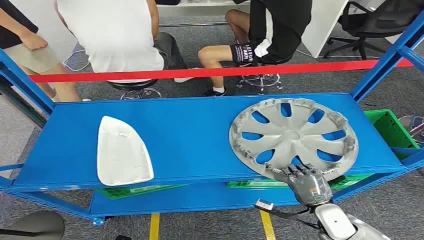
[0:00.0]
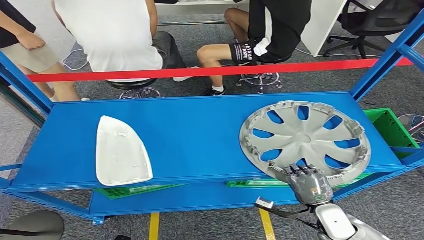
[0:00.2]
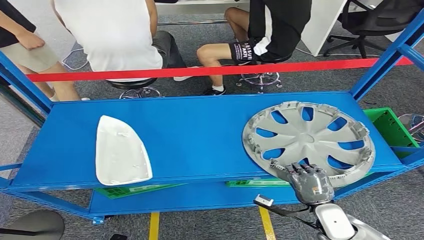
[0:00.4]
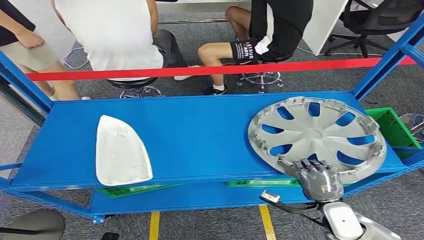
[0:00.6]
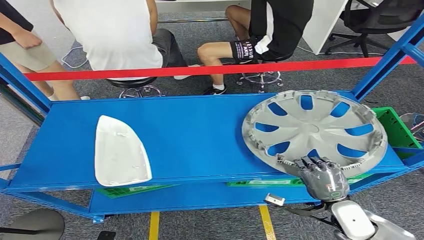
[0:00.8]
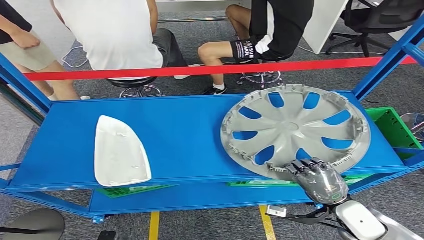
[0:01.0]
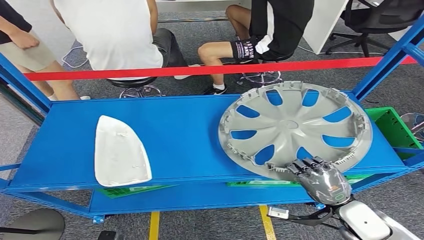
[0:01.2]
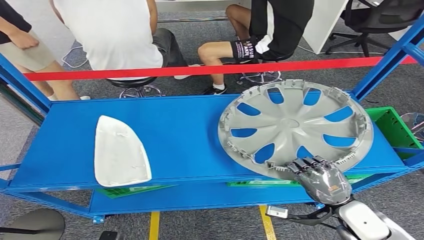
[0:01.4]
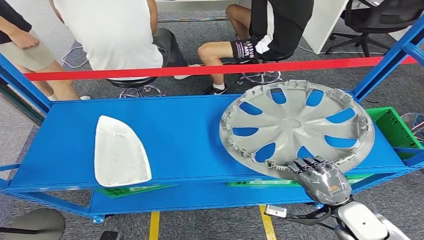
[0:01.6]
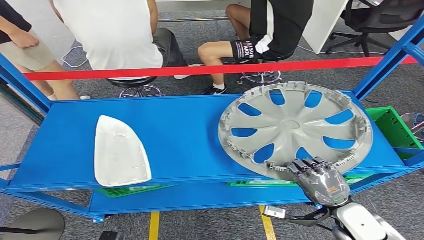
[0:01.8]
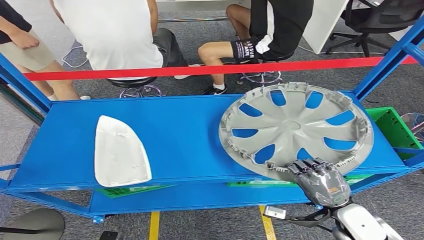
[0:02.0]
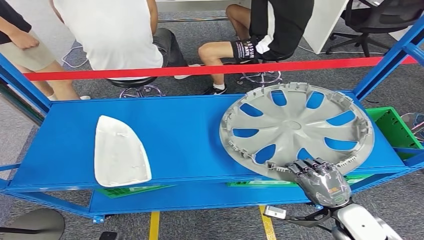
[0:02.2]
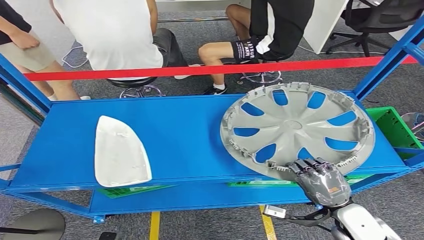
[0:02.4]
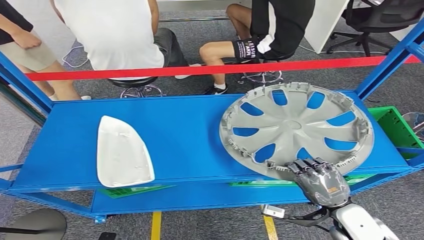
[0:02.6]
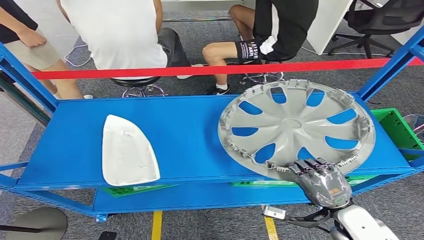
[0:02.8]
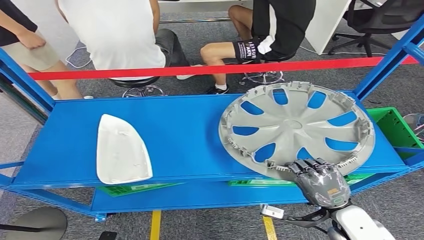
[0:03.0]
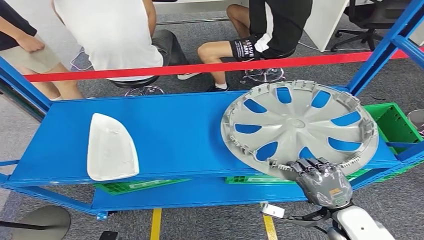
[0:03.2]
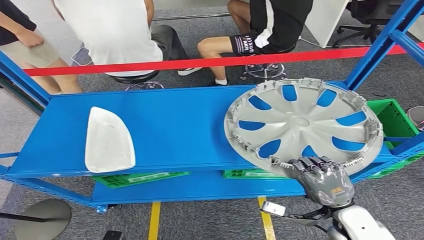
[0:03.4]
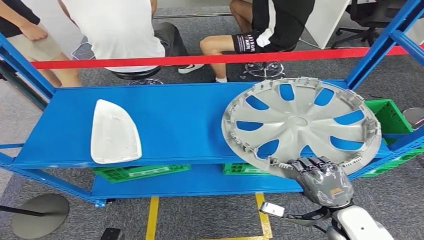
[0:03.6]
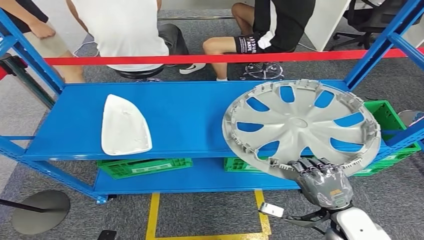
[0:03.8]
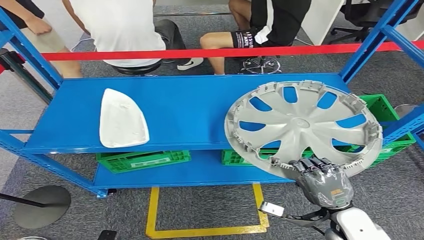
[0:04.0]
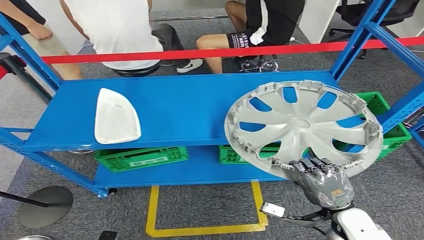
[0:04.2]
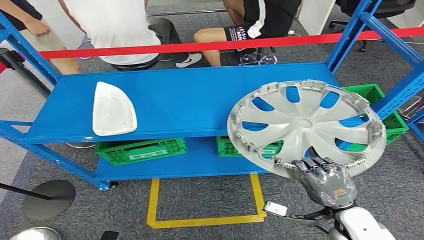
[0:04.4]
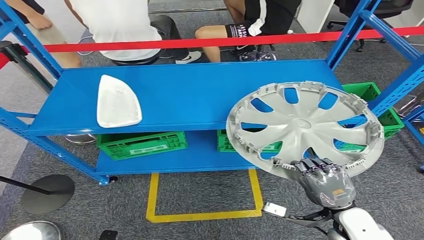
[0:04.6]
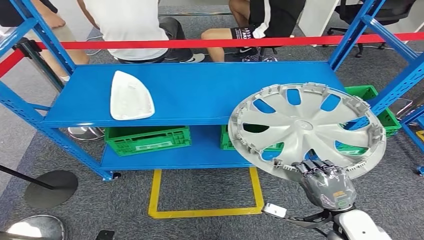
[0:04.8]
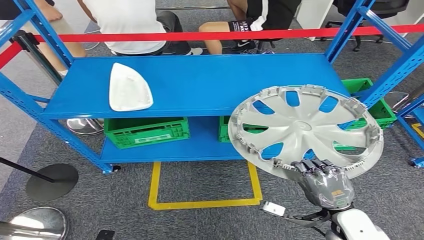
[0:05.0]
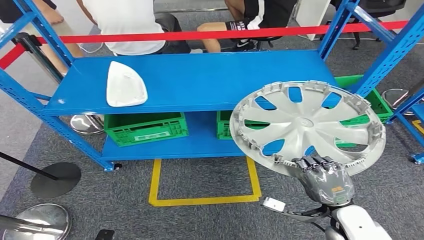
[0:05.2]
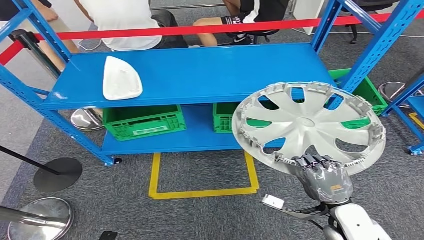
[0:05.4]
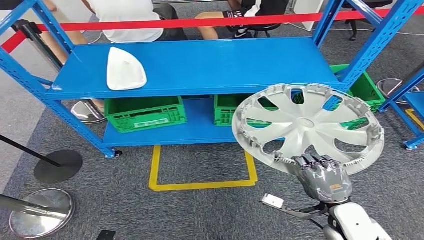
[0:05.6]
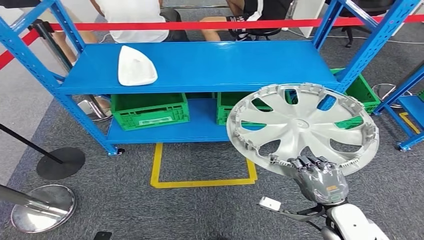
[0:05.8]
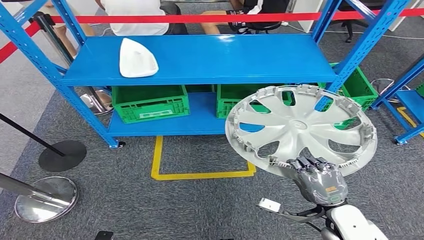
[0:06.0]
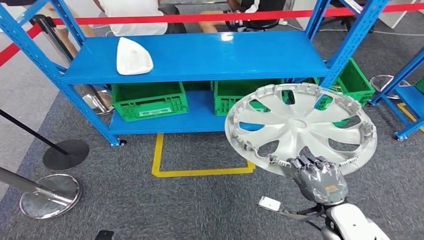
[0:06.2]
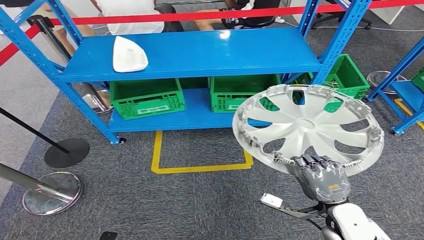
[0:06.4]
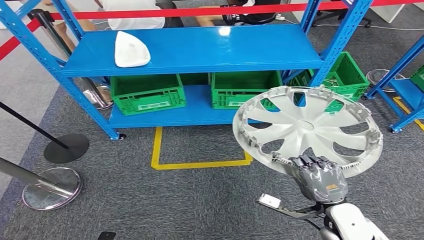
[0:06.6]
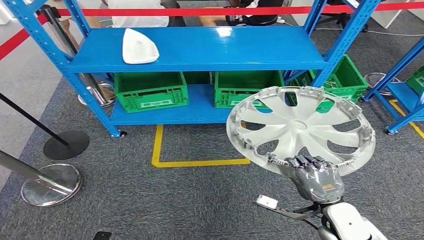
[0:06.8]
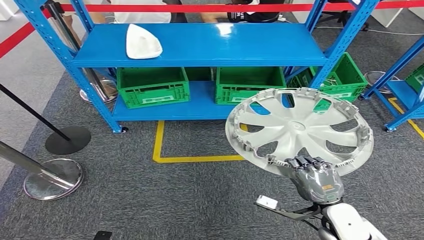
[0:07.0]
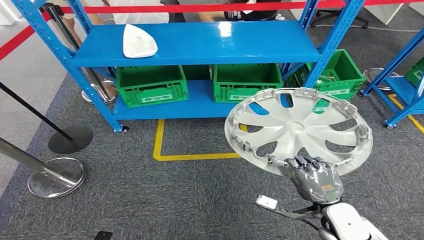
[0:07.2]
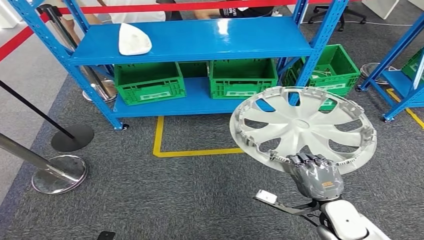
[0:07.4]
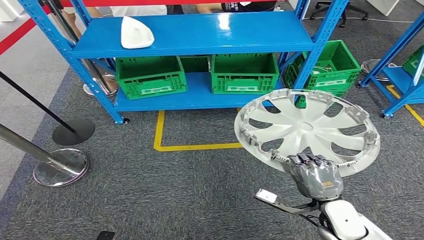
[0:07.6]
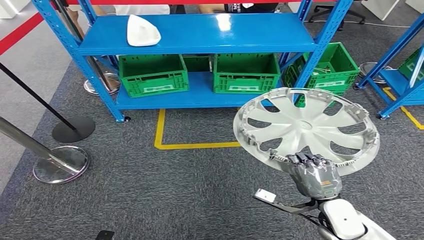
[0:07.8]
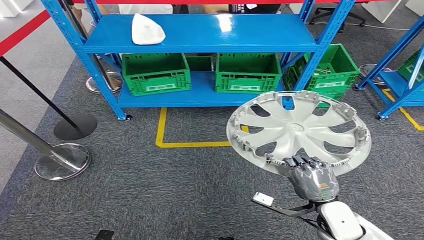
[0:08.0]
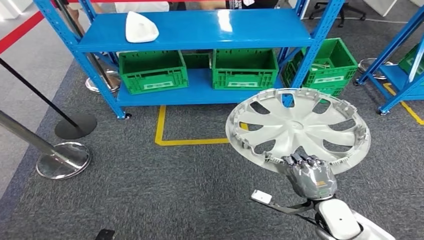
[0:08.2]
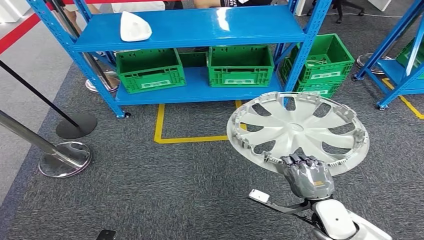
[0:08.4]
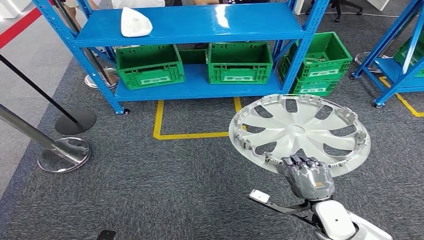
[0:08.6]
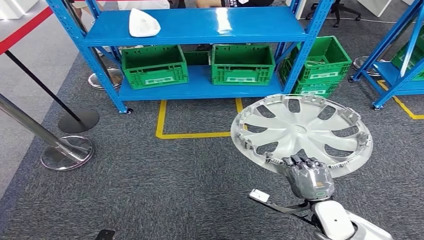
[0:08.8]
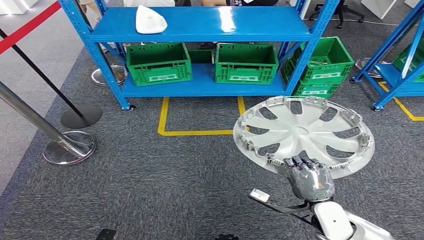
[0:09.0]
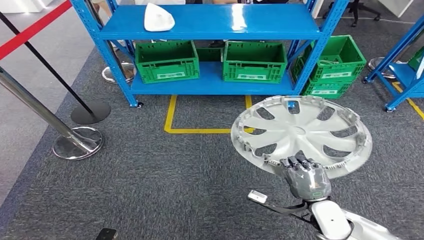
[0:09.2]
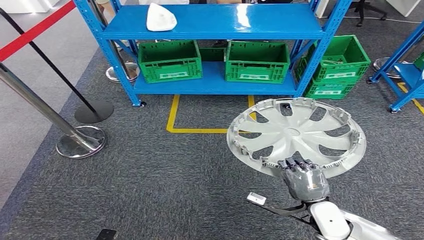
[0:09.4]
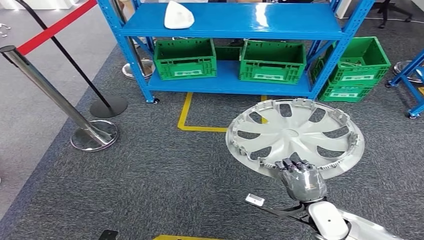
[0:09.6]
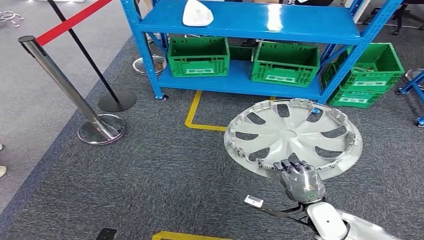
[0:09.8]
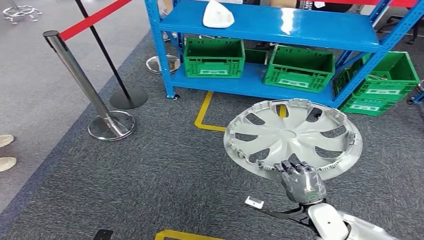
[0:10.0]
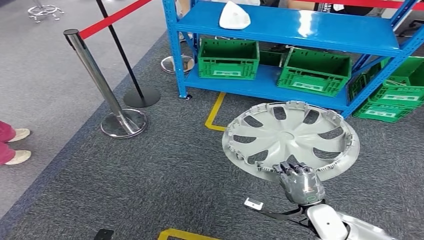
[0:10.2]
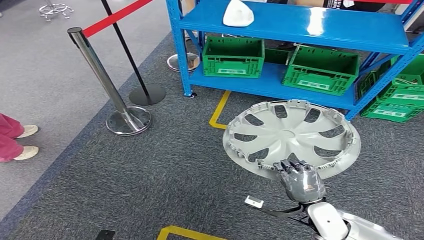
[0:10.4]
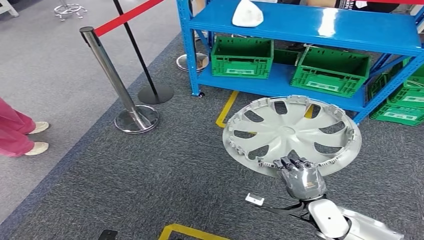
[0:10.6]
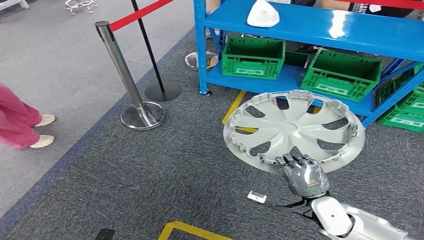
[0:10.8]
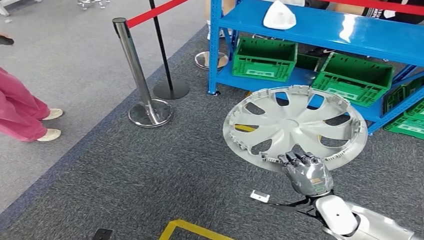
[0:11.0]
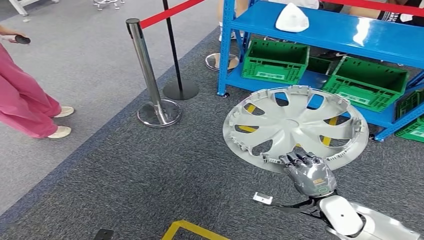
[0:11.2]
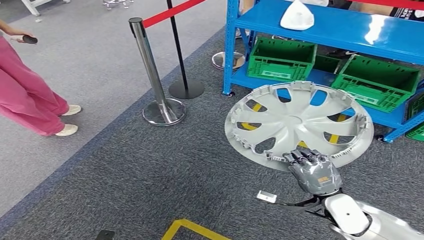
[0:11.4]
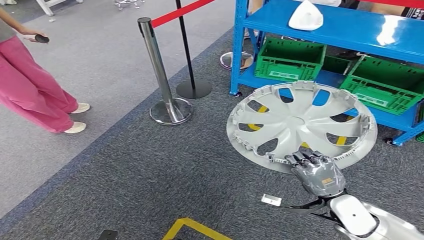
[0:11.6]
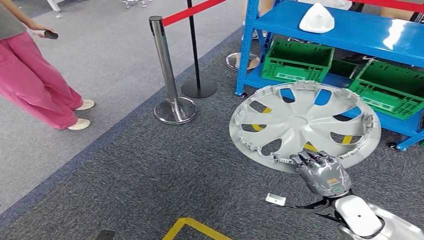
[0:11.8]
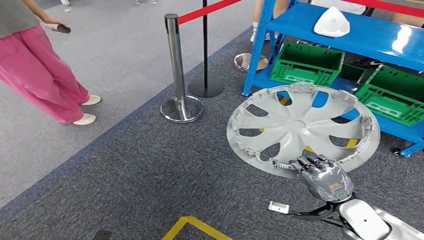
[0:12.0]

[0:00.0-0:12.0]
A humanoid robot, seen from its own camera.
Step, 0:00.0 to 0:04.0: Pick up the small parts from the shelf.
0:01.6 to 0:03.0: Neither hand changes place.

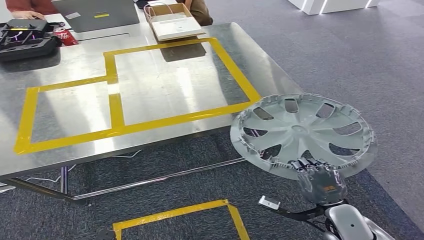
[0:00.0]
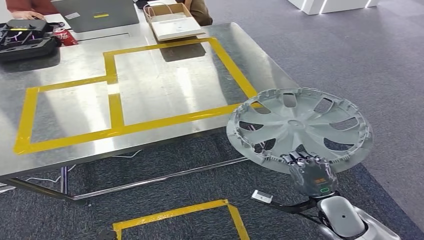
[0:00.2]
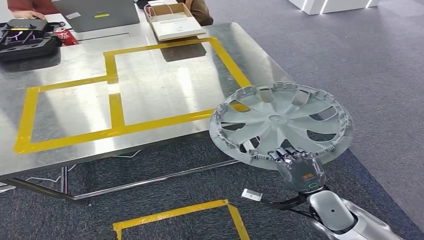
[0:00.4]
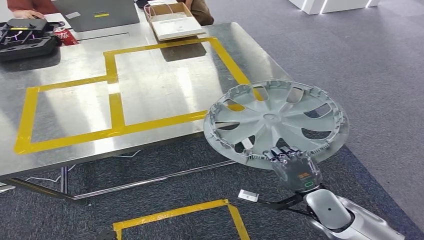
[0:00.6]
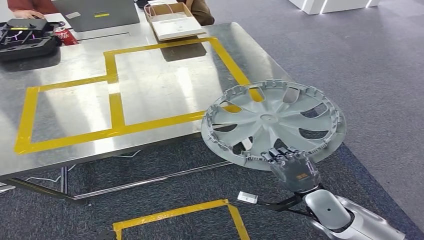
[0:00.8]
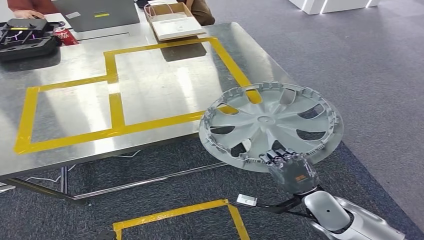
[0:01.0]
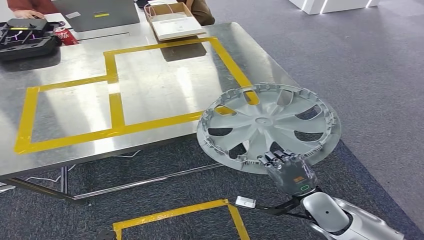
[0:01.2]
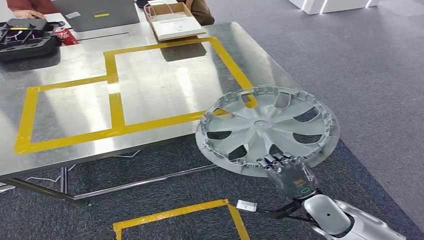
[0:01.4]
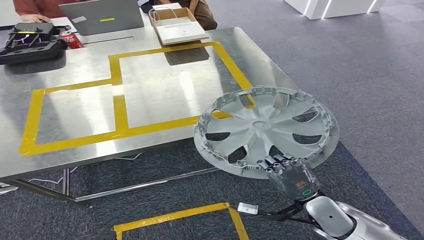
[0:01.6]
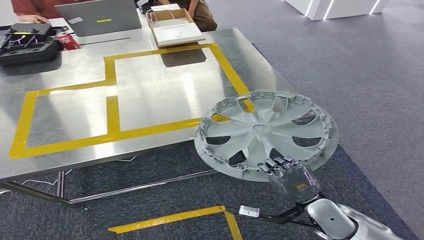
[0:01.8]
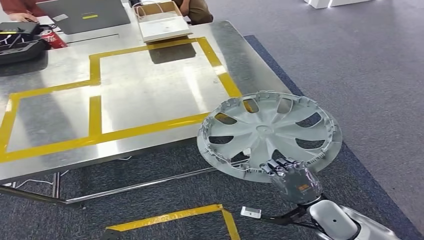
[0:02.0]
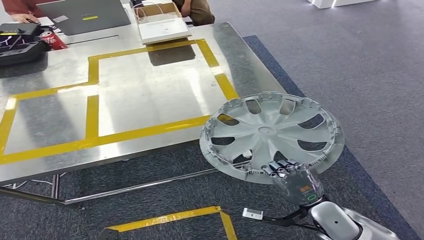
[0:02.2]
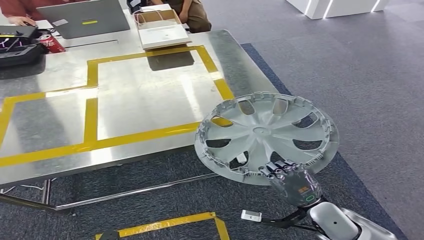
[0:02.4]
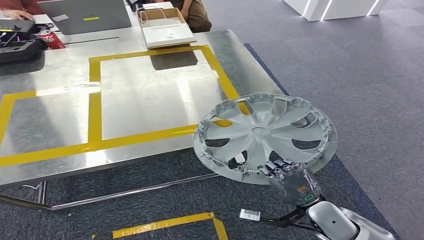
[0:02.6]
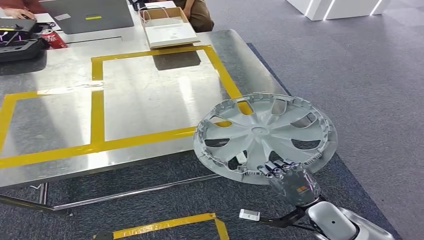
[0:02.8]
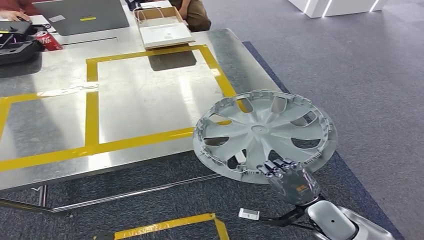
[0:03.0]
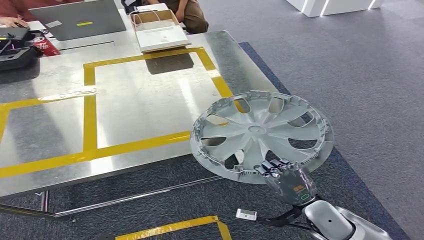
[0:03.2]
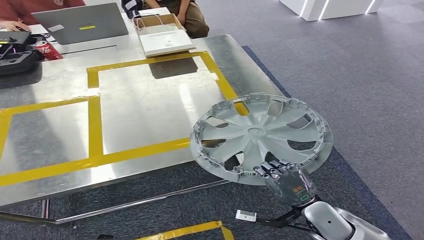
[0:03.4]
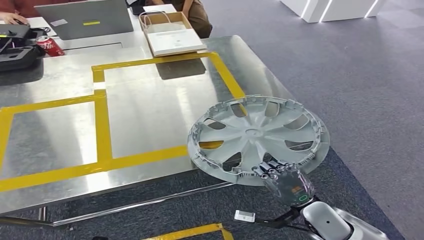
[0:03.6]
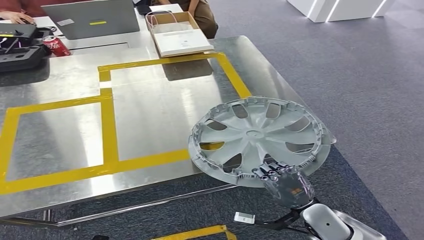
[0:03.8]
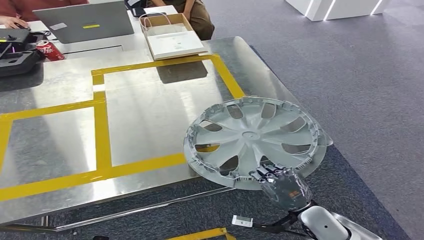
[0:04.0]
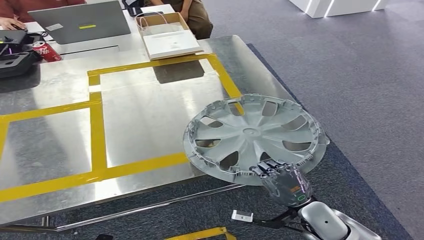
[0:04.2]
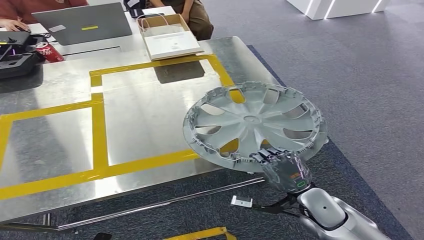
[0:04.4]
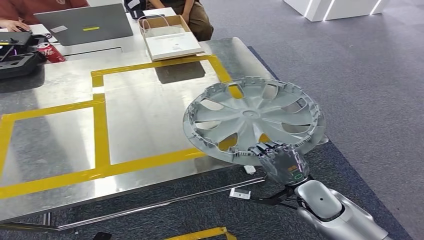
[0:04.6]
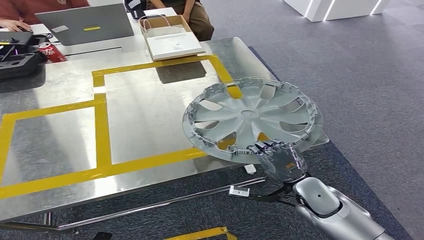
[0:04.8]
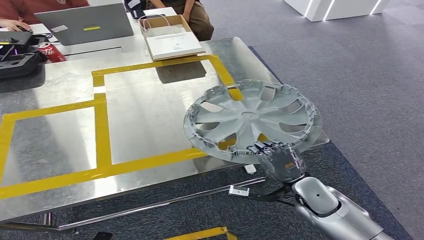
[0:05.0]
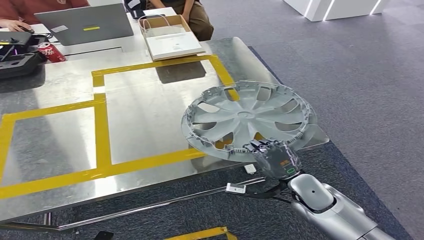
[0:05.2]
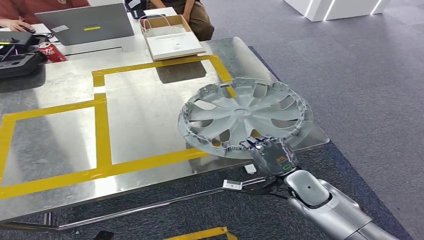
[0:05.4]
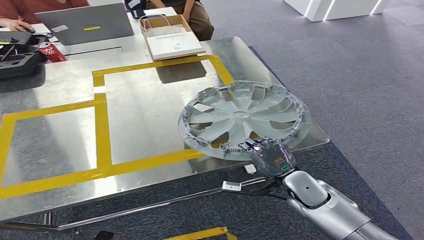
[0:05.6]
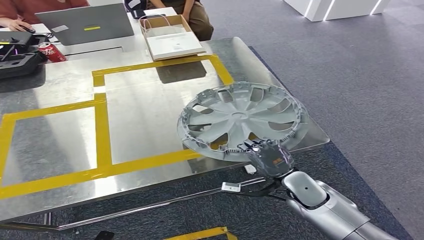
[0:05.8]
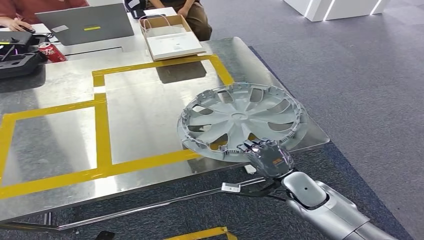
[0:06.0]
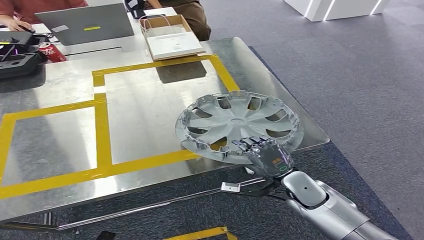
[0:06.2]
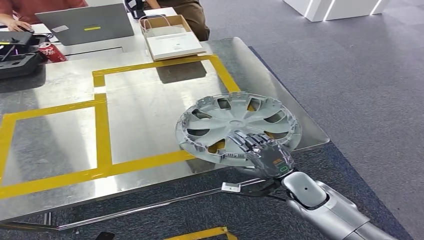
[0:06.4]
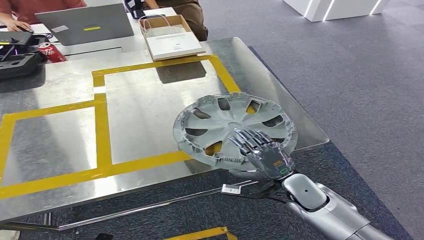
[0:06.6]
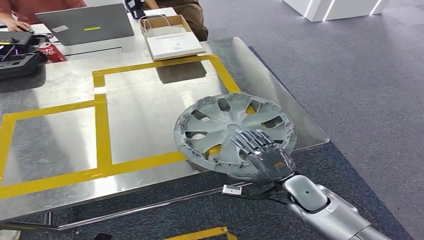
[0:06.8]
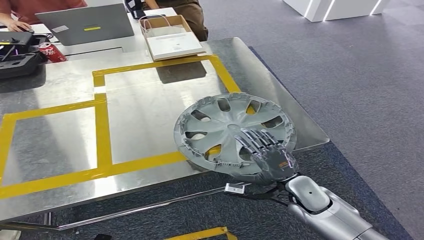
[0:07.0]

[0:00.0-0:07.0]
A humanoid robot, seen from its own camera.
0:00.0 to 0:01.4: The hands stay close to where they were, moving slightly.
0:05.6 to 0:07.0: The hands move only a little.
